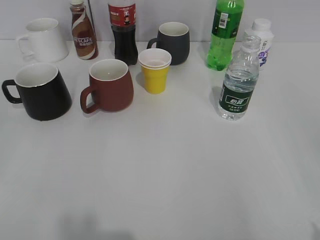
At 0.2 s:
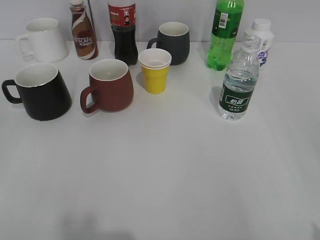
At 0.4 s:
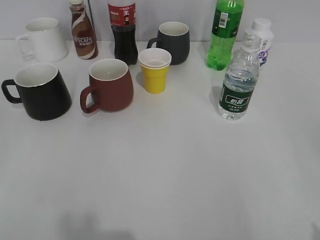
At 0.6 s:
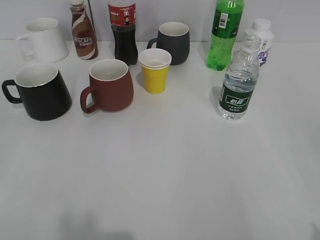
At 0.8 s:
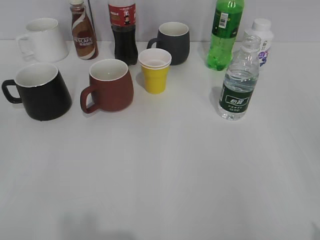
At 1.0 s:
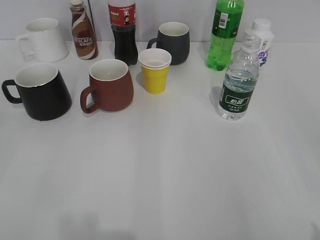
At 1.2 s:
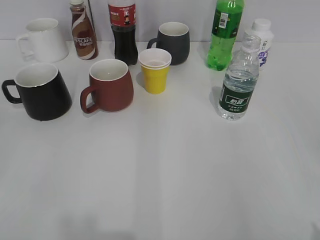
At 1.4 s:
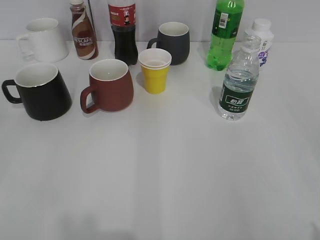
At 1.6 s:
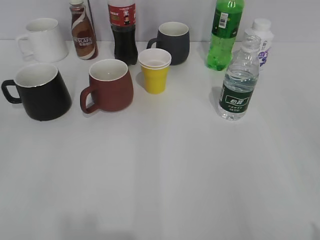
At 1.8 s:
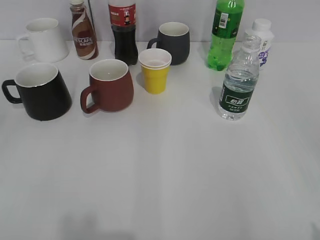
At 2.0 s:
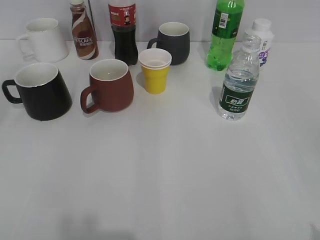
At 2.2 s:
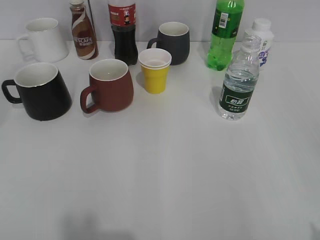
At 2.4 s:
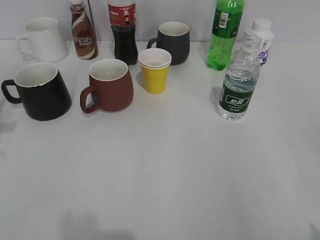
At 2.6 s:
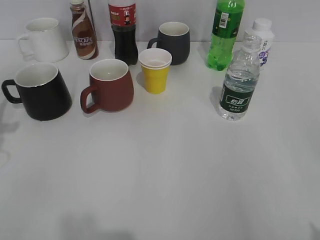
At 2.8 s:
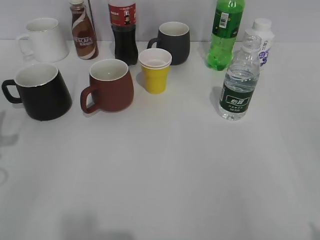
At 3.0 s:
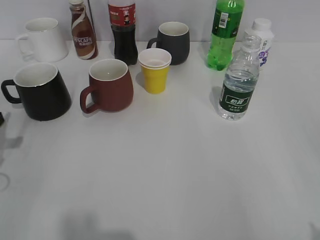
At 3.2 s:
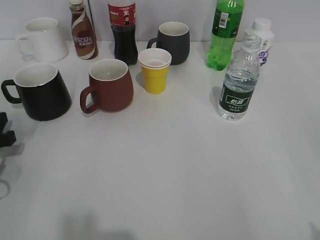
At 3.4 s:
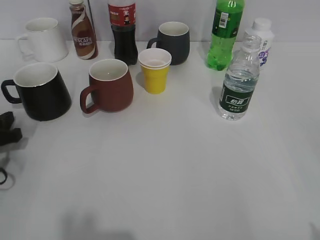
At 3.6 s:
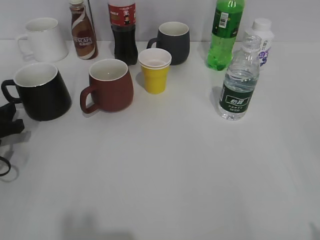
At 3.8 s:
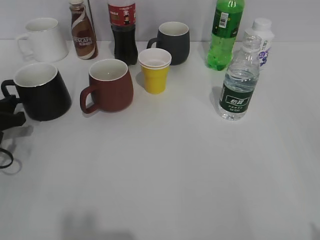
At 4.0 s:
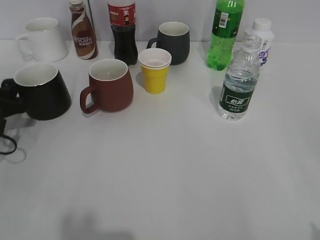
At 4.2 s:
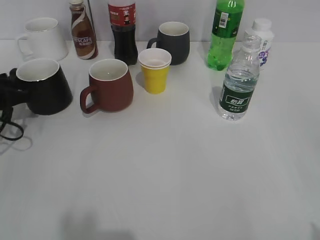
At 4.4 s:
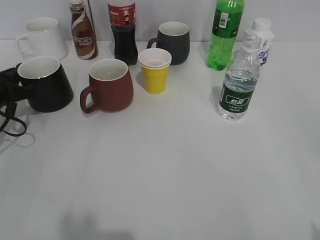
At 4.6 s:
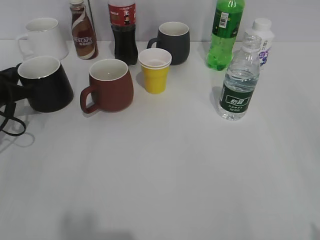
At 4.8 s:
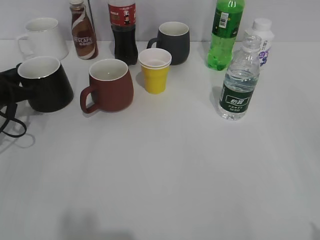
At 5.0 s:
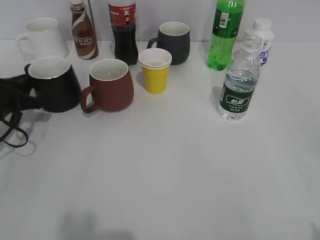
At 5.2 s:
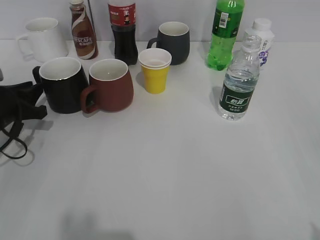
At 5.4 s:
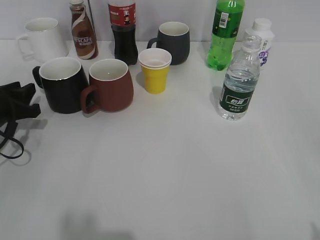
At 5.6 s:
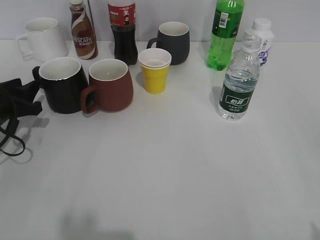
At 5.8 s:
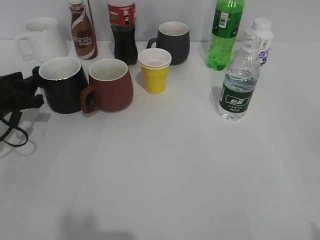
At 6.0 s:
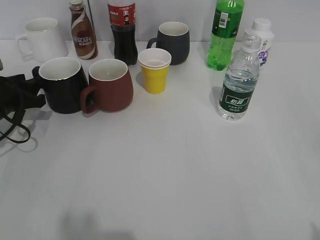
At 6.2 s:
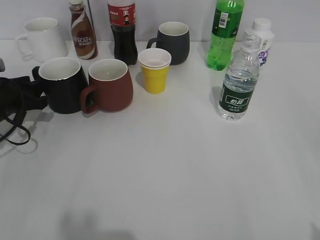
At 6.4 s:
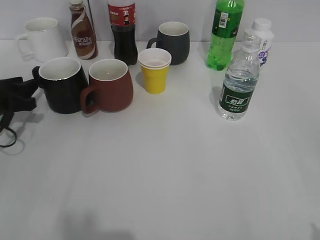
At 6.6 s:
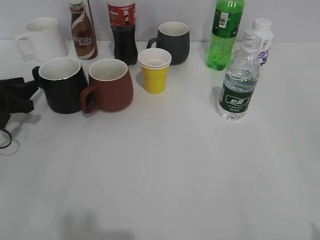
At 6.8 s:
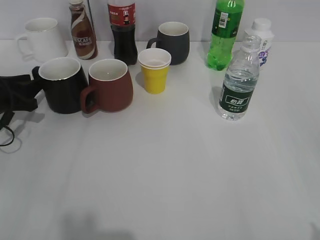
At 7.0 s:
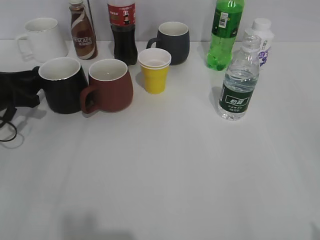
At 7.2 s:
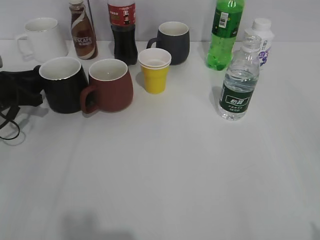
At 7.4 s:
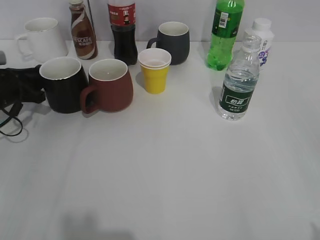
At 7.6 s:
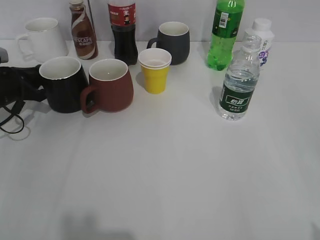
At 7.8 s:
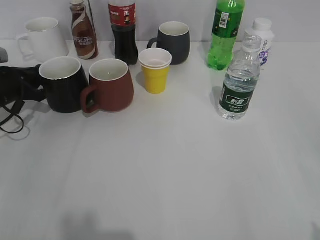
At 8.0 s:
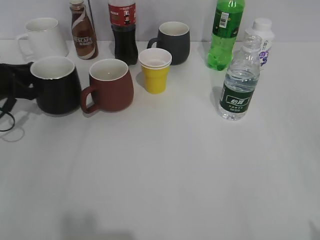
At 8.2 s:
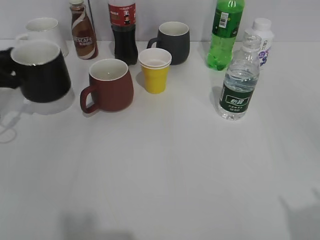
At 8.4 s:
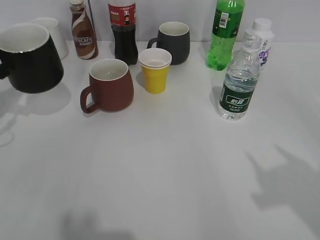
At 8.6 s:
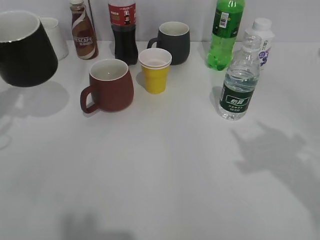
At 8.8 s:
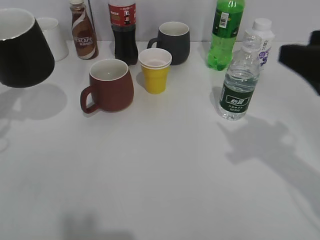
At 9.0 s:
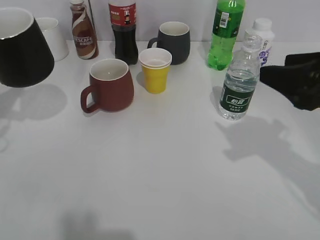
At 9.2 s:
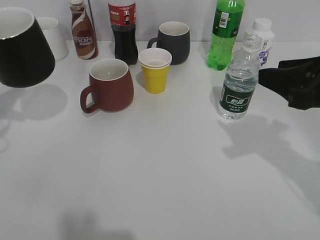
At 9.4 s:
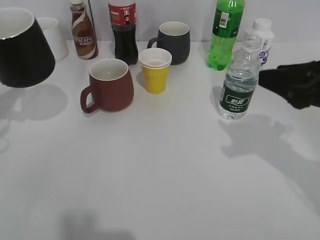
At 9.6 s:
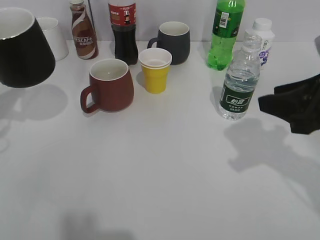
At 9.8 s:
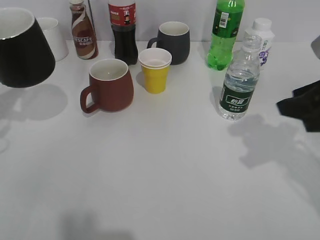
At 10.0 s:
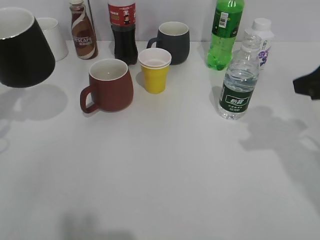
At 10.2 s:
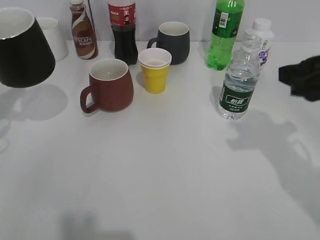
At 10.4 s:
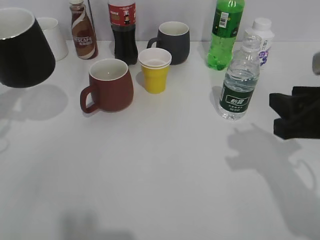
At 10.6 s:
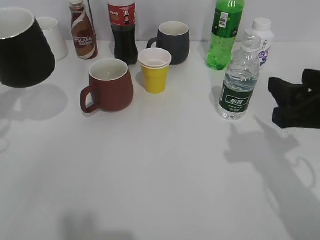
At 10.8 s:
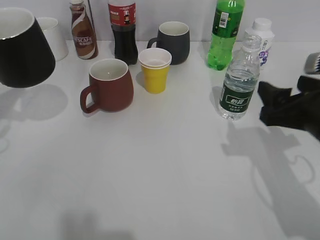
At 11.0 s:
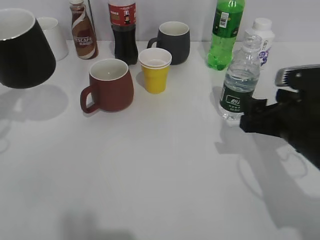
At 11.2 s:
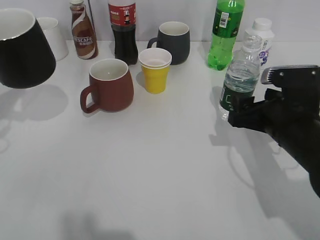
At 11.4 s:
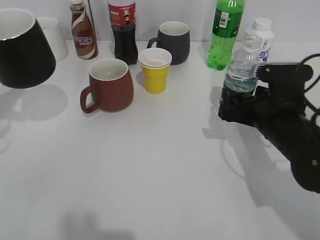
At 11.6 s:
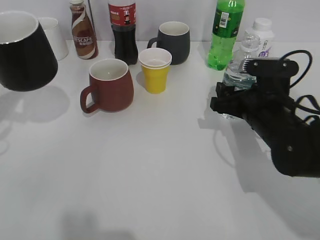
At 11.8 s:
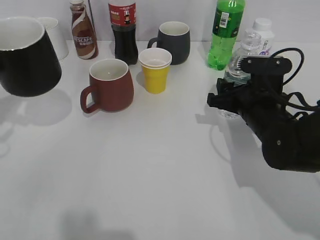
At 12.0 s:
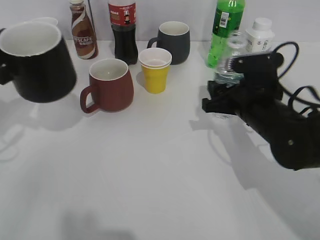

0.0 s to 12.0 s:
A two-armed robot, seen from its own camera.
Step, 1.6 to 7.6 s: Grasp the black cup with left gripper.
Step, 7.8 to 8.4 s: Lift the black cup with left gripper.
Step, 8.8 to 11.6 s: Grasp the bottle with water with right gripper.
1.6 to 3.0 s: The left gripper goes about 25 cm forward and downward.
3.0 to 4.4 s: The left gripper goes roughly 10 cm forward, and closes.
4.4 to 6.0 s: The left gripper opens its fingers.
6.0 to 7.6 s: The left gripper closes.
7.6 to 9.0 s: The left gripper travels upward and backward by about 15 cm, while the right gripper is displaced forward by roughly 20 cm.
9.0 to 10.4 s: The right gripper closes.
10.4 to 12.0 s: The right gripper goes roughly 15 cm forward, downward and to the left, and opens up.

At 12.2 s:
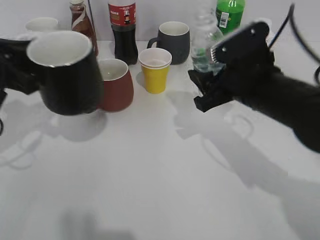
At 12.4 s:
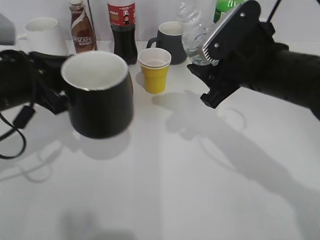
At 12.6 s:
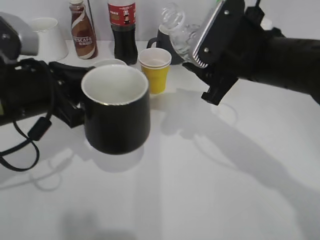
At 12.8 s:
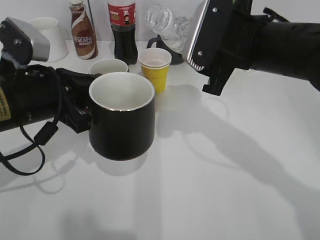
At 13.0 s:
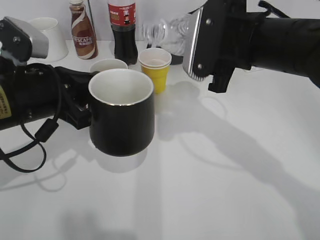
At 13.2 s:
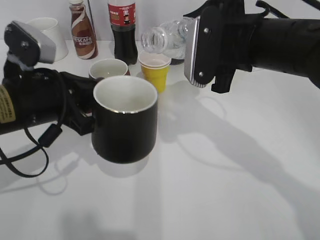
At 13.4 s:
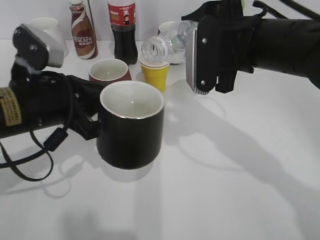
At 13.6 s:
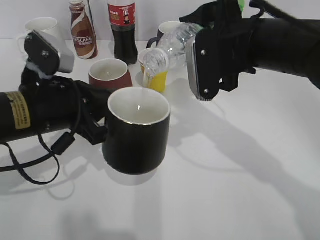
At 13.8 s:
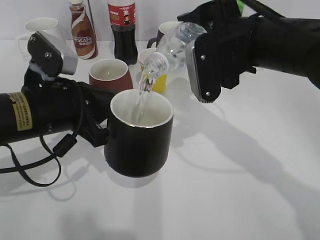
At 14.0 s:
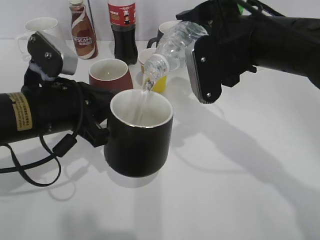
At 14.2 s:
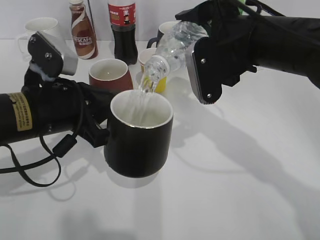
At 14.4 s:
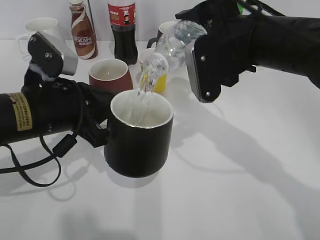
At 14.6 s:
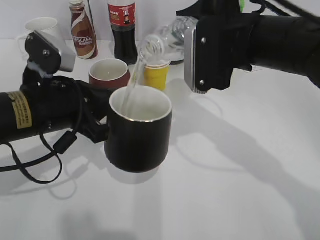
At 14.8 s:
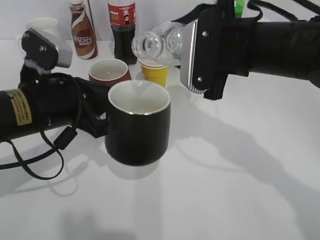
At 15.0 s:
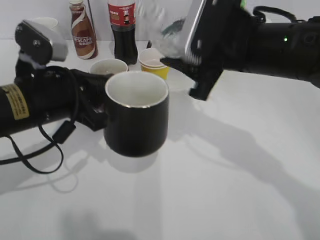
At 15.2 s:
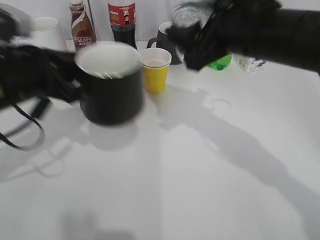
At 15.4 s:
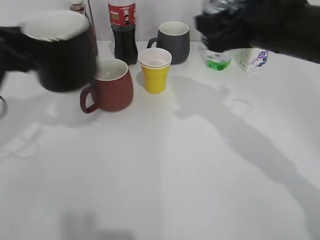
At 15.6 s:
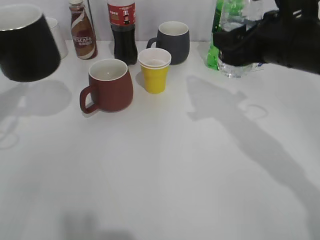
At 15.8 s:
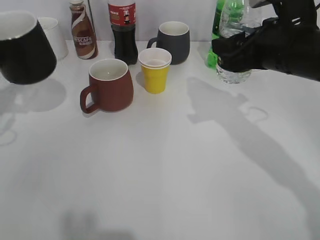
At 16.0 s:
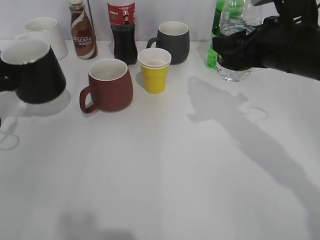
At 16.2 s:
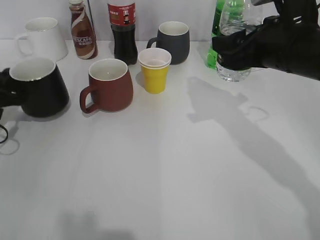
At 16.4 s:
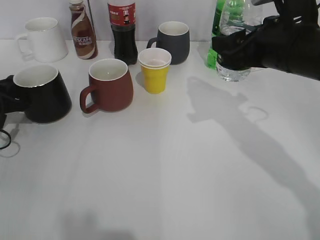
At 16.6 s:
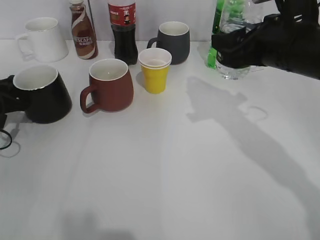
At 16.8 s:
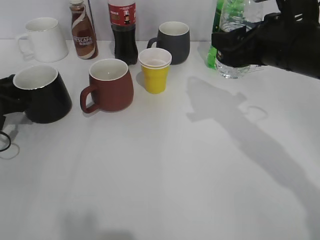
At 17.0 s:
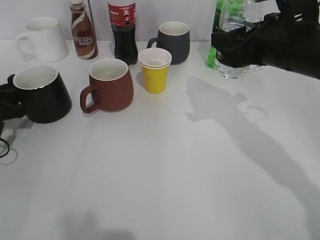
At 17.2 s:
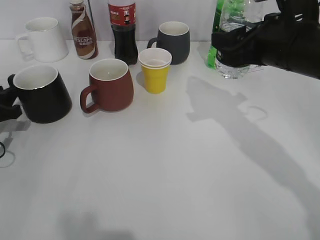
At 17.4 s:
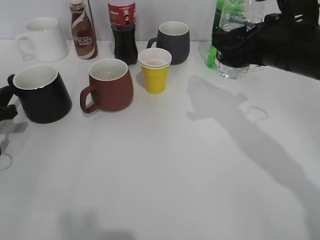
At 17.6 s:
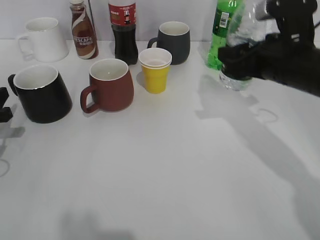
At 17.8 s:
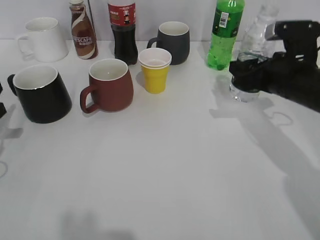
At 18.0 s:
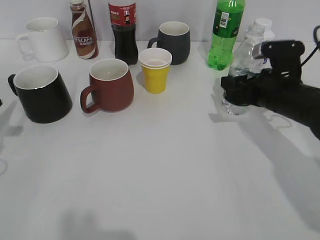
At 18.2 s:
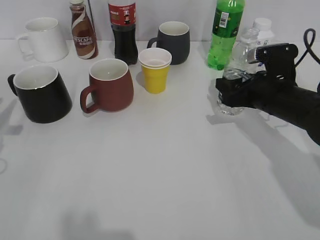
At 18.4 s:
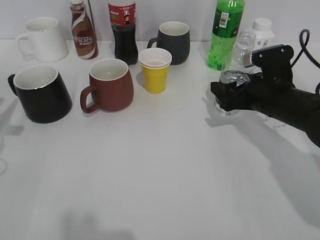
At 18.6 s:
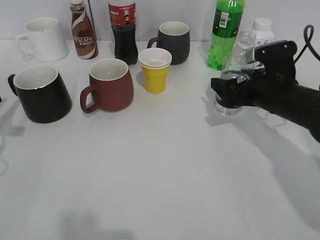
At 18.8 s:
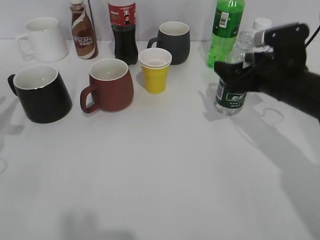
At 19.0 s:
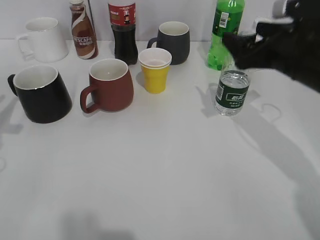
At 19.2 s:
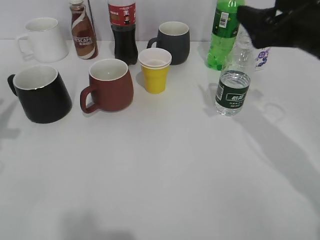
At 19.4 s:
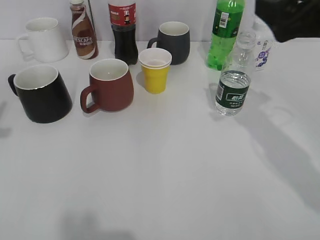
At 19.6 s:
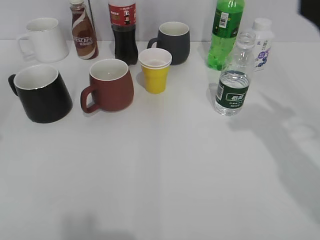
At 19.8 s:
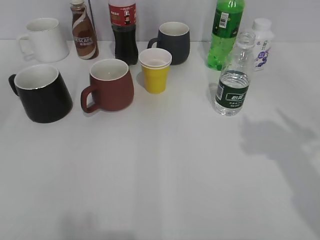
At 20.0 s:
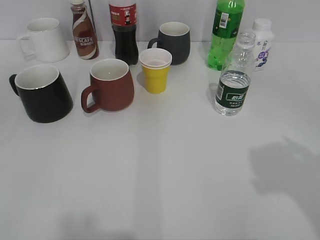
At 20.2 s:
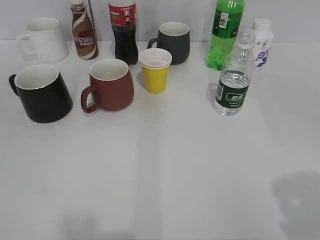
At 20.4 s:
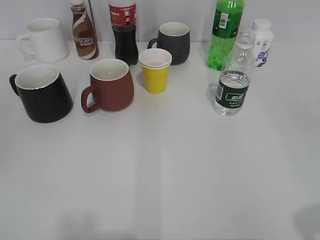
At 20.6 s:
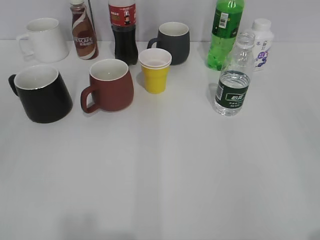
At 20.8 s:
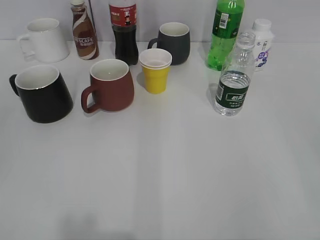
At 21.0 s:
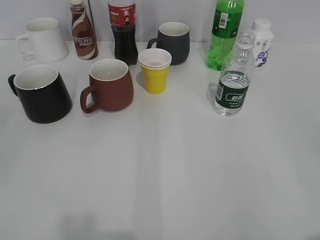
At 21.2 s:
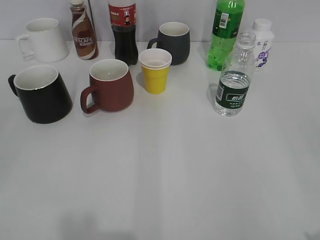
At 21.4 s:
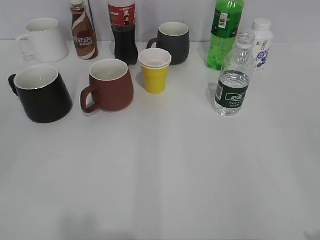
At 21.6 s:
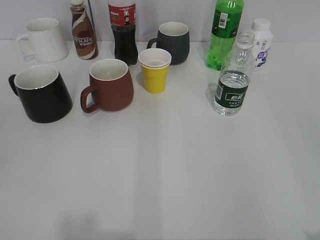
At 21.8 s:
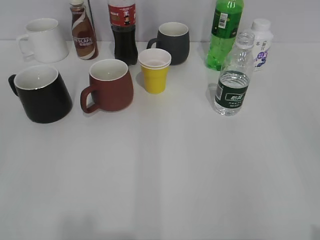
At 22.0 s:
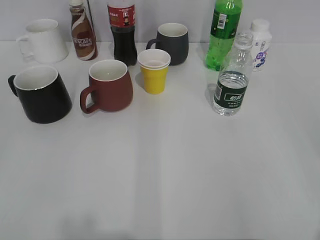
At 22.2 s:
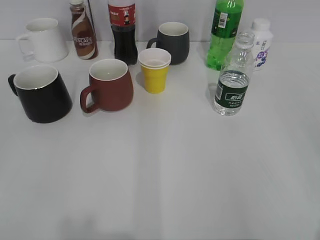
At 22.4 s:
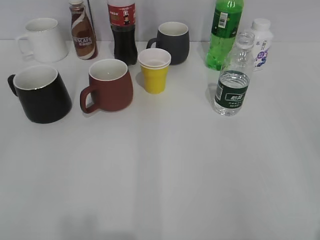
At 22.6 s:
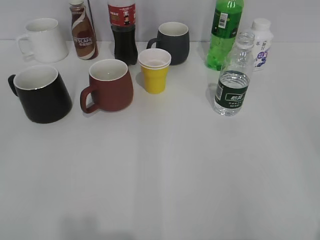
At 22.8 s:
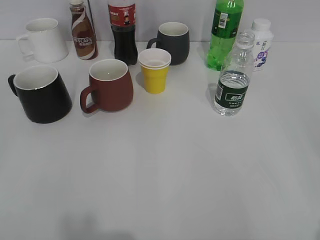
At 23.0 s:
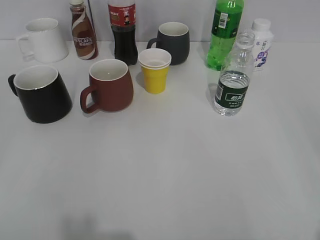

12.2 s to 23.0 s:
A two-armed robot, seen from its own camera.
Step, 12.2 to 14.6 s: Pour the water from bottle to cup with right gripper.
Step, 14.8 to 16.6 s: Place the black cup on the table with left gripper.
Step, 16.8 to 18.6 s: Place the water bottle on the table with right gripper.
12.2 to 13.8 s: The right gripper goes roughly 10 cm upward. The left gripper is displaced to the right by some 10 cm.
15.2 to 16.8 s: The left gripper shifts about 20 cm to the left, downward and forward, and opens up; the right gripper moves to the right, roughly 5 cm.
16.8 to 18.4 s: The right gripper is displaced downward by roughly 10 cm; the left gripper goes approximately 10 cm backward and upward.
18.4 to 20.0 s: The left gripper shifts roughly 25 cm backward and upward. The right gripper shifts approximately 30 cm upward and backward.
20.0 to 21.4 s: The left gripper shifts approximately 5 cm backward.
